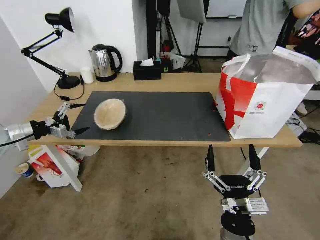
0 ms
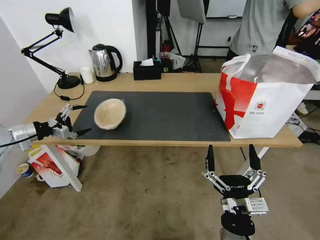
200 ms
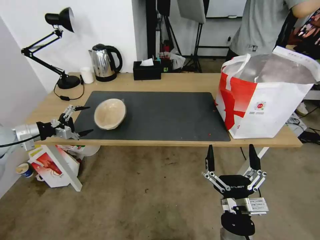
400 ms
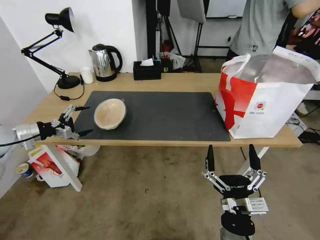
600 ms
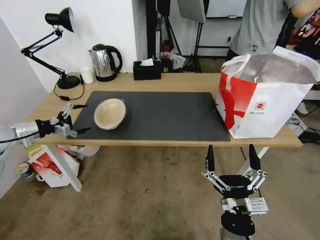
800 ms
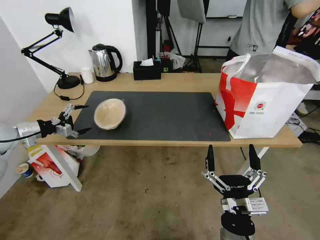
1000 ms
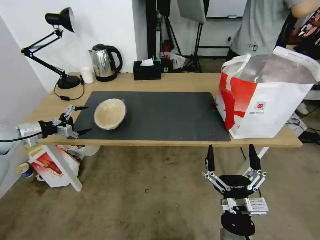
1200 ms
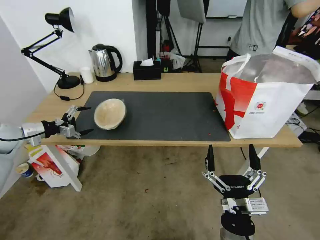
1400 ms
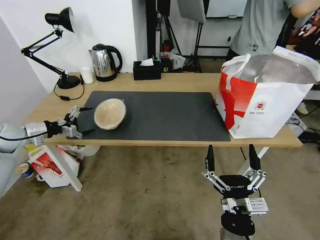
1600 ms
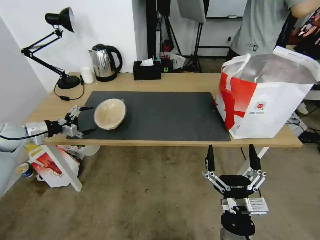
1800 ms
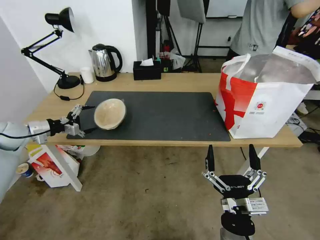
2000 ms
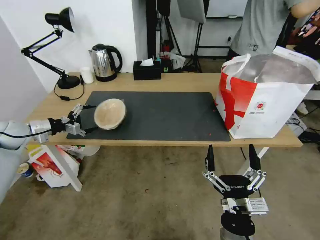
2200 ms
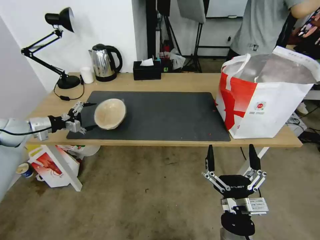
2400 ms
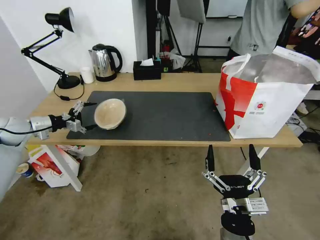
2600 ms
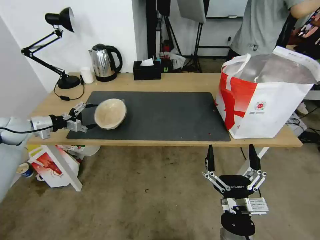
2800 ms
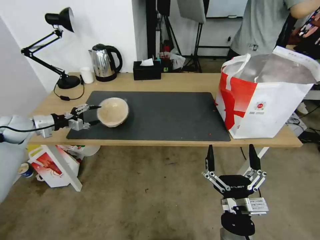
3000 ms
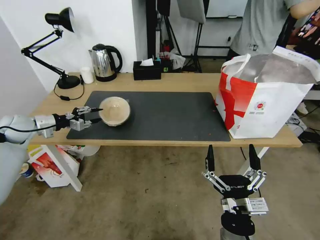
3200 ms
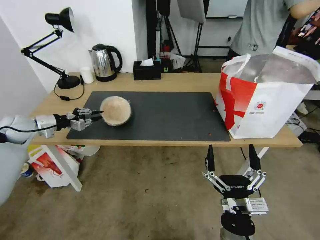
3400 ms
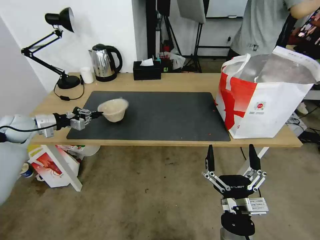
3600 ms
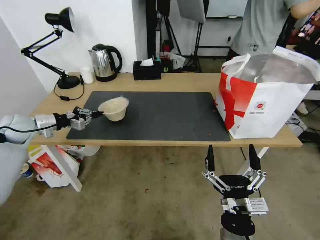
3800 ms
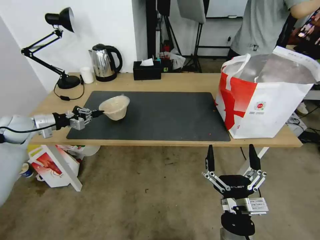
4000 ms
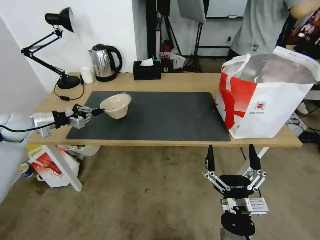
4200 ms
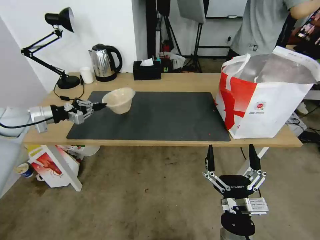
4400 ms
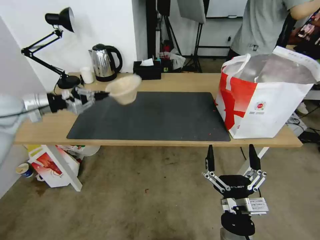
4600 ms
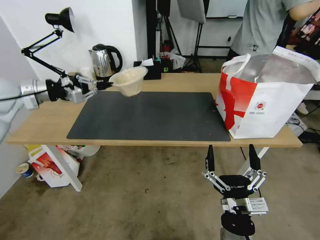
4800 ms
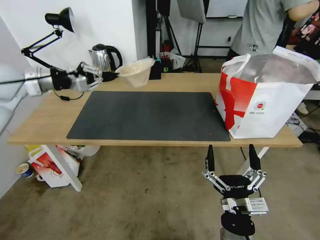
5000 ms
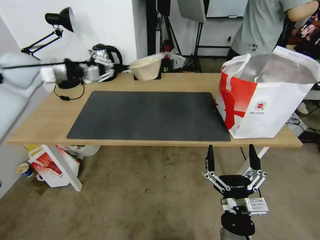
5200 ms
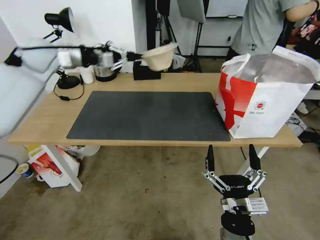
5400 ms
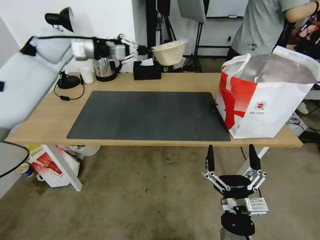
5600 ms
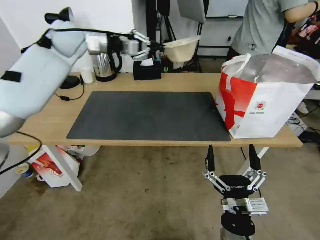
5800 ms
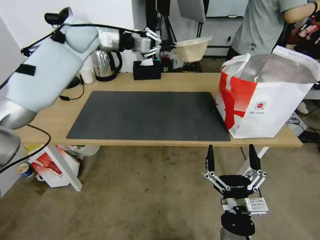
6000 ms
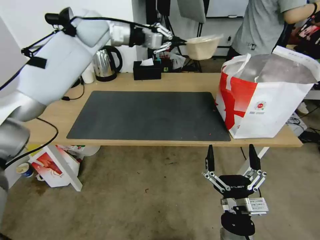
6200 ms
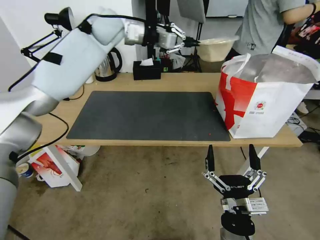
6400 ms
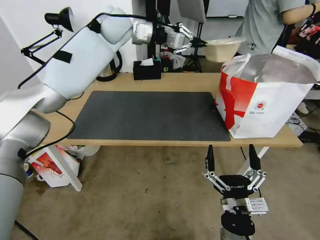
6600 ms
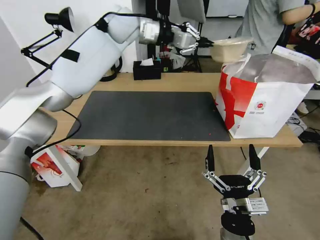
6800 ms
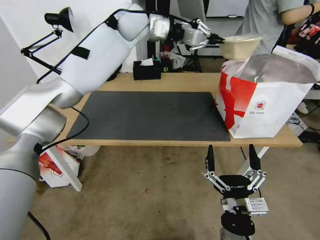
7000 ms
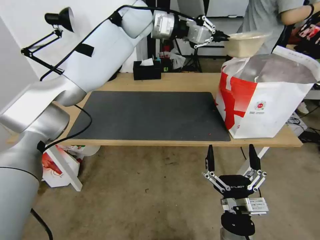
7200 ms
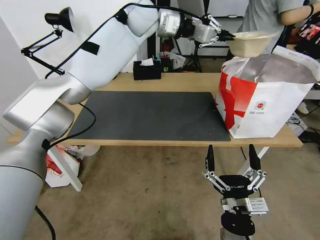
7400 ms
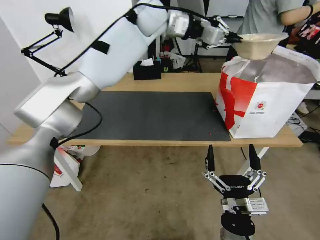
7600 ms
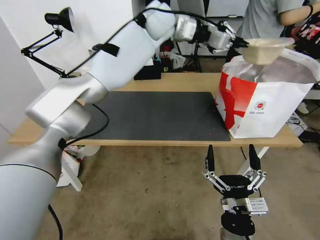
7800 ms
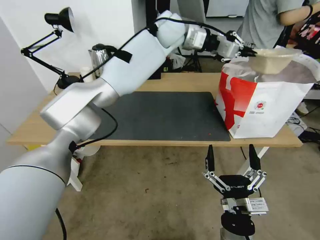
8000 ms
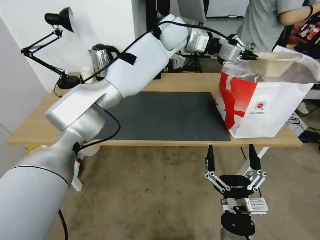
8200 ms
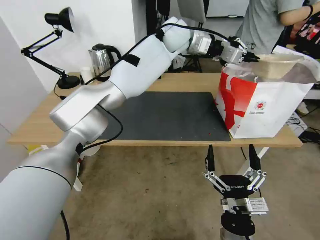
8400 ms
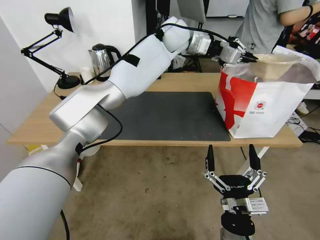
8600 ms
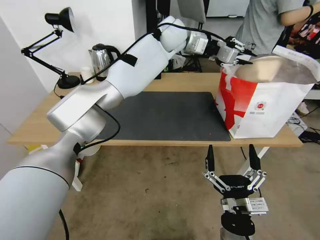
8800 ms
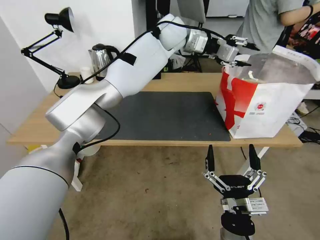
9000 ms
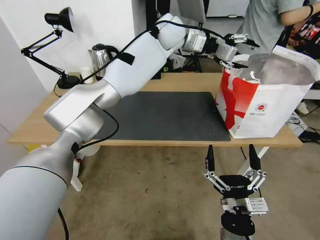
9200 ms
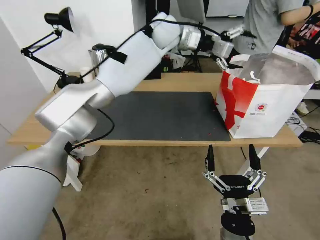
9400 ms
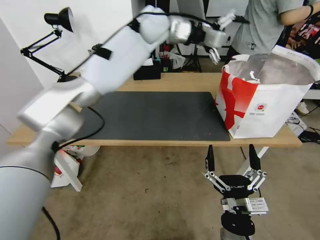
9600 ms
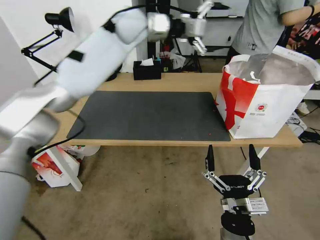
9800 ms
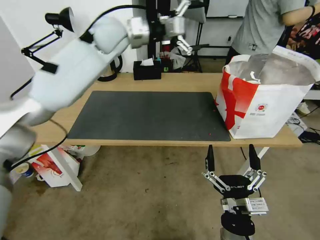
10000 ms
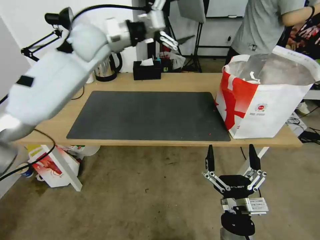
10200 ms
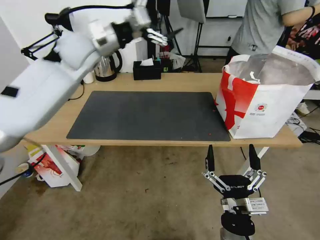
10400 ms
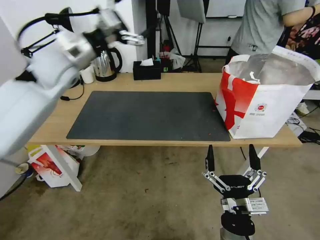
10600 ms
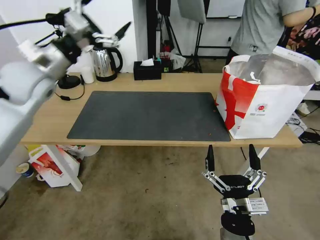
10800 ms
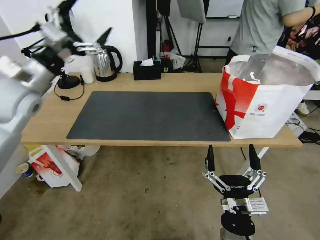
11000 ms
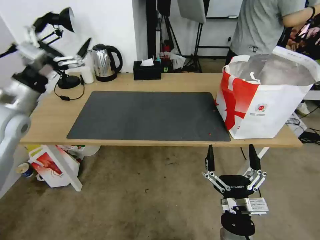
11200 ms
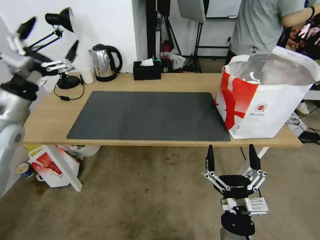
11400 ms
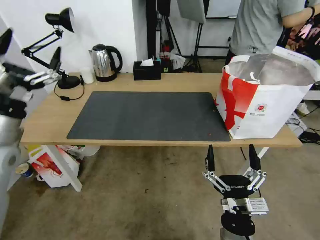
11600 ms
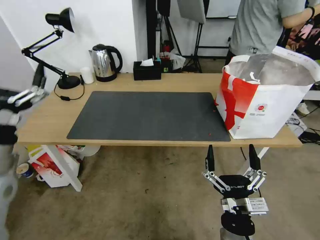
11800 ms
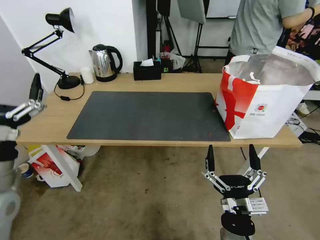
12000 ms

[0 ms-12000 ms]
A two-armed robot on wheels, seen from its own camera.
Task of the whole recording: Pick up the trash from the table and place it into the takeout bag.
0 ms to 1600 ms: The left gripper moves roughly 5 cm.
1600 ms to 3000 ms: The left gripper closes.
3000 ms to 4400 ms: The left gripper ends up some 5 cm from where it was, and closes its fingers.
4400 ms to 6000 ms: The left gripper is displaced to the right, upward and forward by approximately 35 cm.
6000 ms to 7600 ms: The left gripper goes about 20 cm to the right.
7600 ms to 9000 ms: The left gripper is displaced to the right by about 5 cm, and opens.
9000 ms to 10400 ms: The left gripper is displaced to the left and backward by some 25 cm, and opens.
10400 ms to 12000 ms: The left gripper shifts about 40 cm backward, downward and to the left.

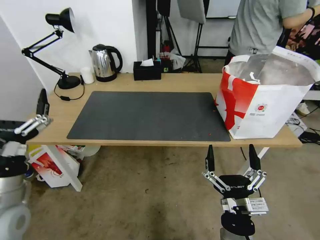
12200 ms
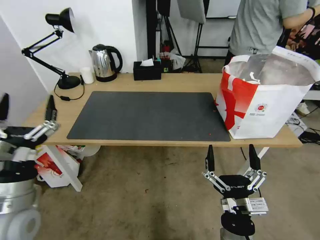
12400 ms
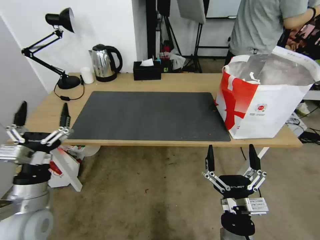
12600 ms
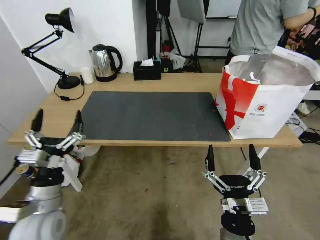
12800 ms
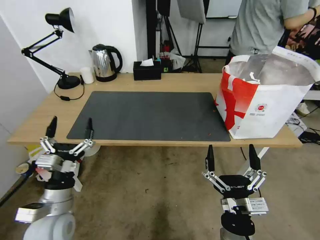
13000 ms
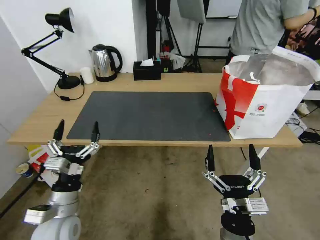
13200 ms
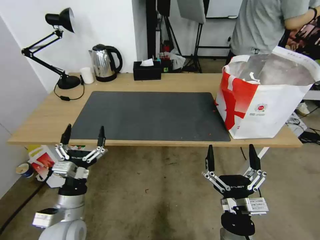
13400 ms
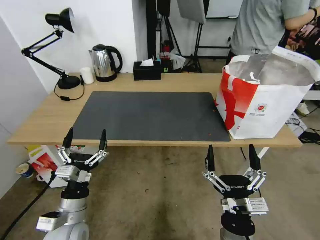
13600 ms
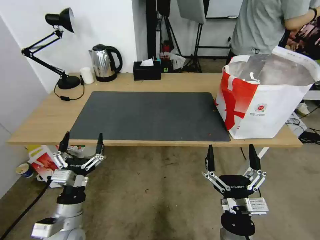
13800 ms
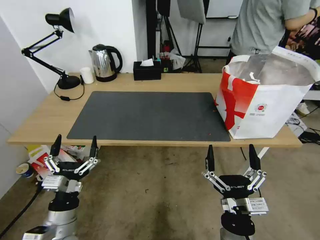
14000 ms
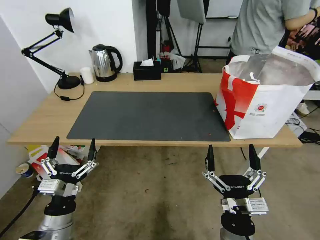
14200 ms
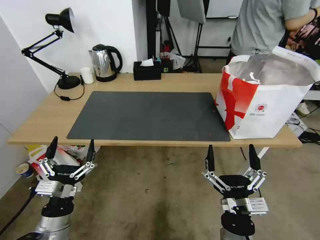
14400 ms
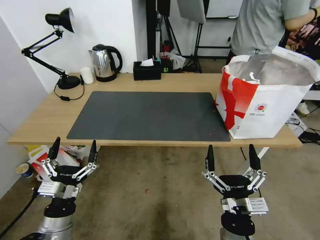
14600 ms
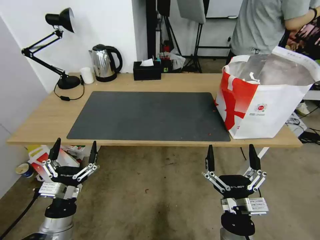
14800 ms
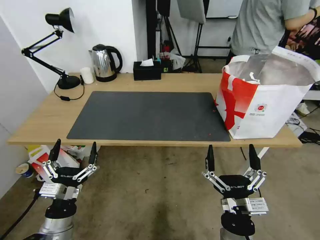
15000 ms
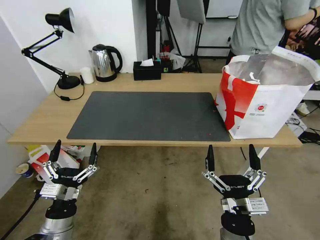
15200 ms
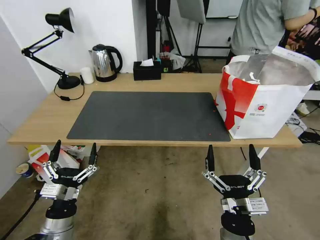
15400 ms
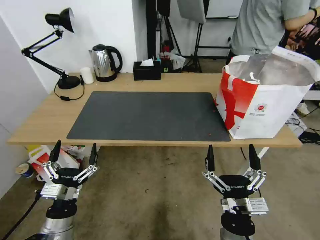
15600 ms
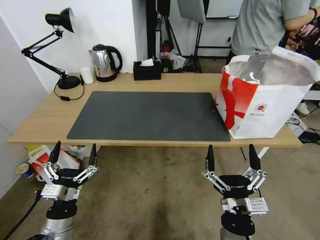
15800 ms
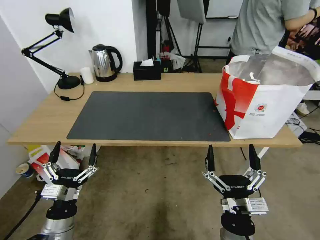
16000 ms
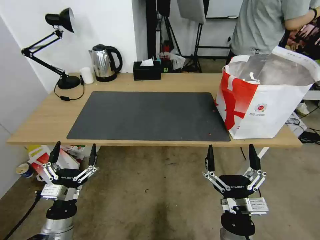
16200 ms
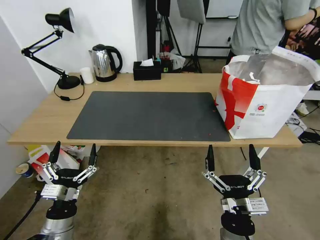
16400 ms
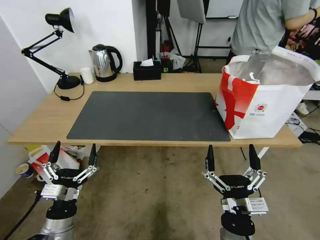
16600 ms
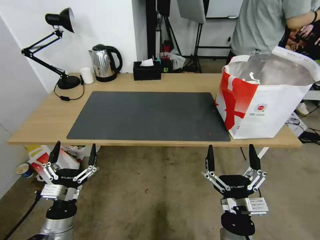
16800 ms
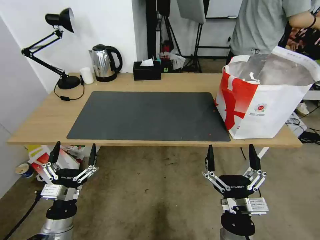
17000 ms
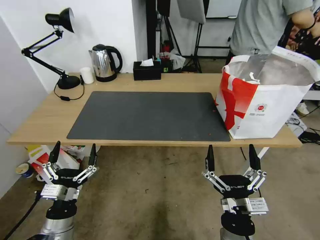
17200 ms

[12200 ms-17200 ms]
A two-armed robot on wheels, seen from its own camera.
Task of the whole recording: Pick up the trash from the table and place it into the takeout bag.
12200 ms to 13800 ms: The left gripper travels downward and to the right by approximately 15 cm.
13800 ms to 15600 ms: There are only small adjustments of the grippers.
15600 ms to 17200 ms: Both grippers stay put.

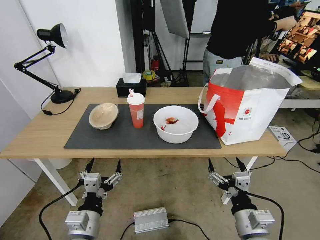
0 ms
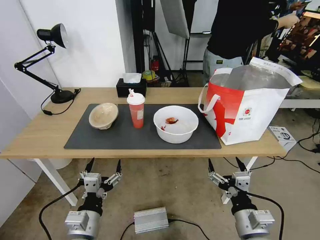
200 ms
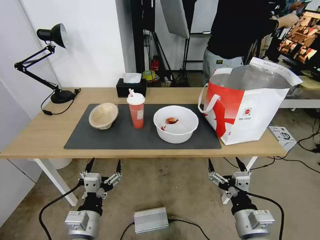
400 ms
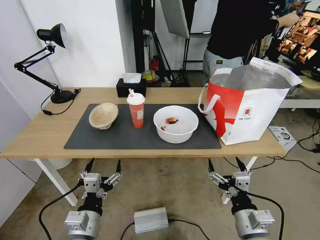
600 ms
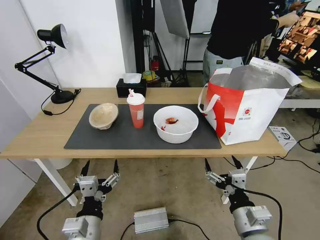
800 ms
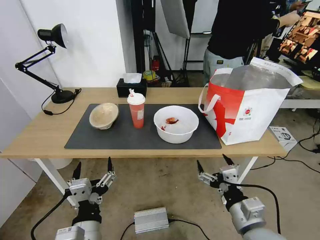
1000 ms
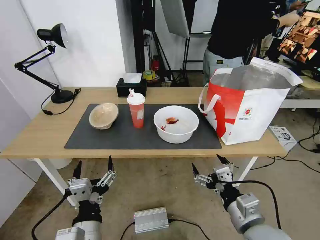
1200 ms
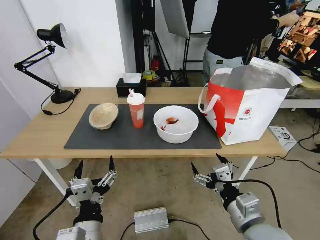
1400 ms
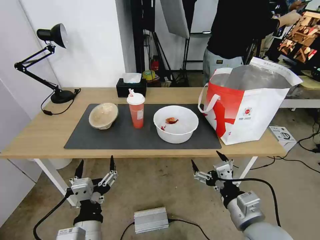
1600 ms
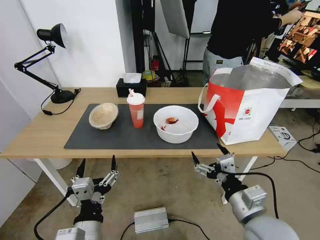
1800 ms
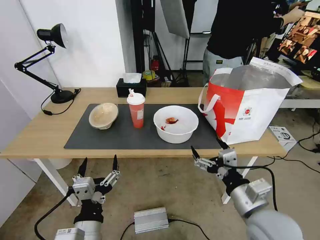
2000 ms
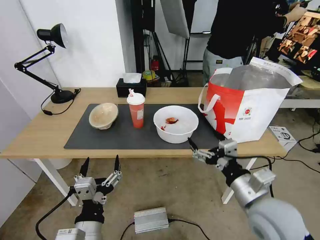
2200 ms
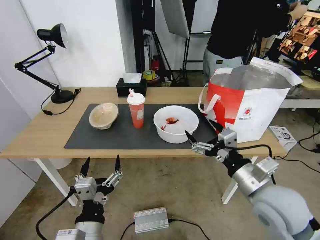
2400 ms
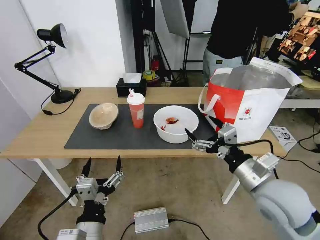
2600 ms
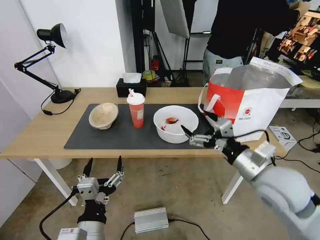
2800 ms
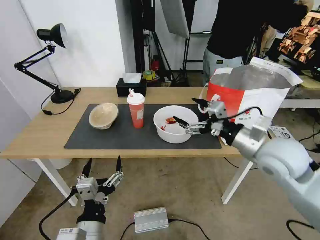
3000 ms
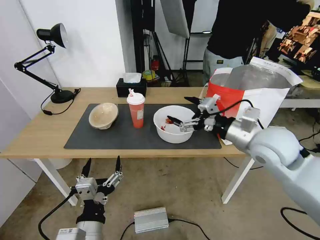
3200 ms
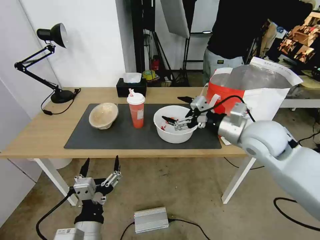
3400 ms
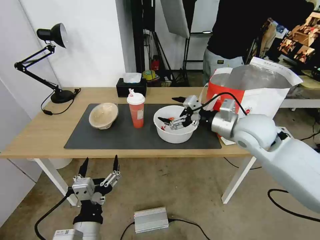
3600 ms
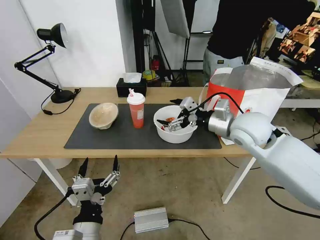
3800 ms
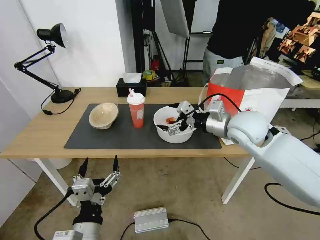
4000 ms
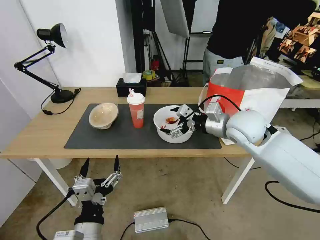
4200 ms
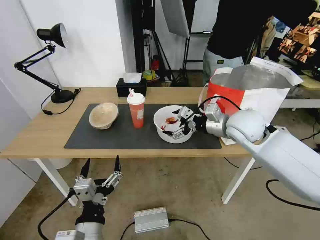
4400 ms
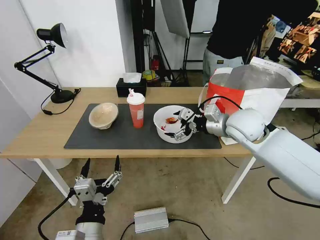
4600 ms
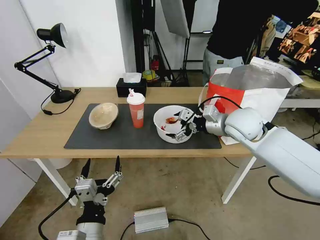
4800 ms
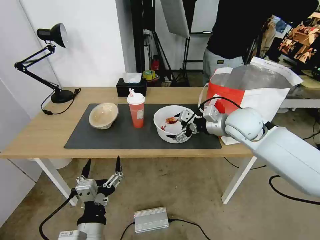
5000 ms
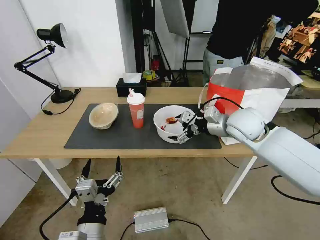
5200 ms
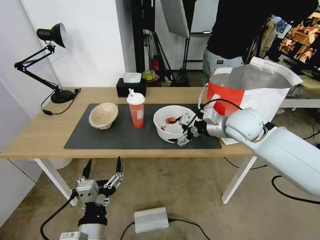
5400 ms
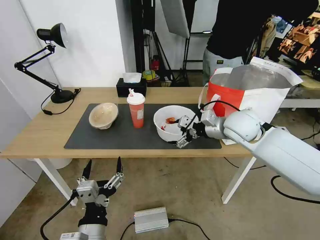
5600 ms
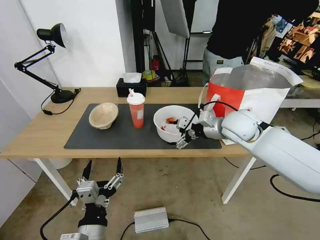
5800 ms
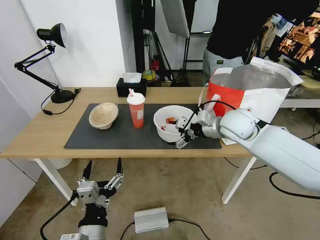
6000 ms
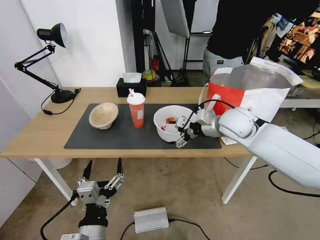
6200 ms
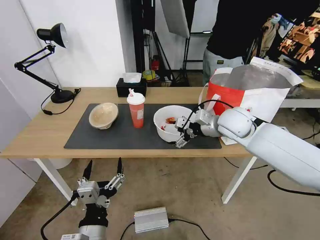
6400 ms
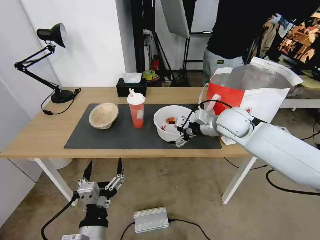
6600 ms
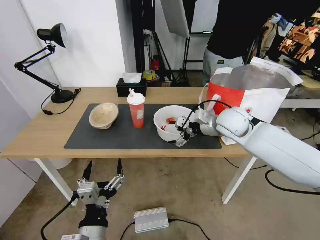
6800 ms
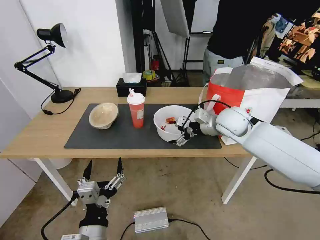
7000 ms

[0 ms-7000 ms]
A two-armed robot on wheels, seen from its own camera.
Task of the whole recording: Pick up the trash from the table and place it into the takeout bag.
1400 ms to 2800 ms: The right gripper moves forward and upward, about 10 cm.
2800 ms to 4200 ms: The right gripper moves forward, some 15 cm.
4200 ms to 5600 ms: There are only small adjustments of the grippers.
5600 ms to 7000 ms: The grippers stay close to where they were, moving slightly.
